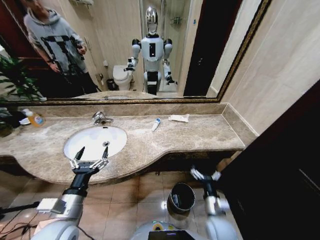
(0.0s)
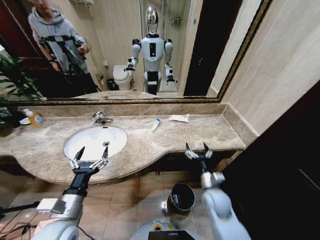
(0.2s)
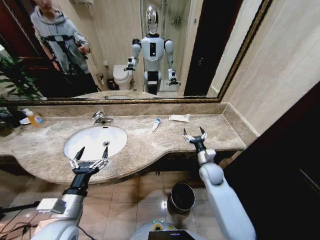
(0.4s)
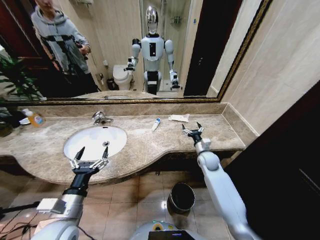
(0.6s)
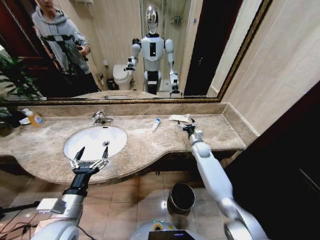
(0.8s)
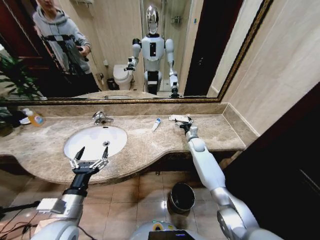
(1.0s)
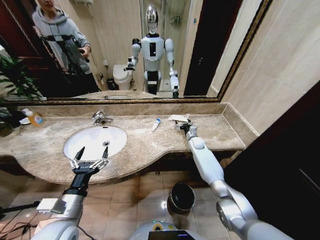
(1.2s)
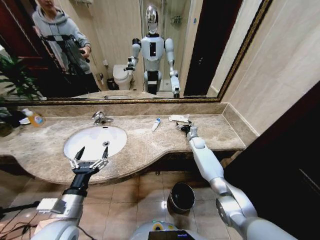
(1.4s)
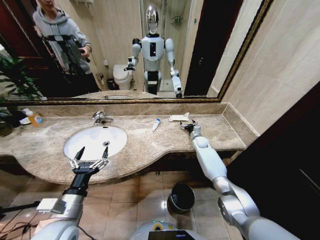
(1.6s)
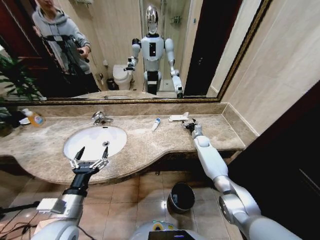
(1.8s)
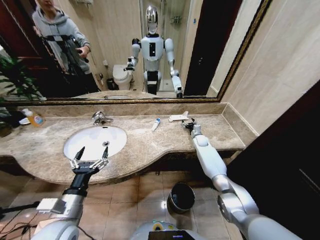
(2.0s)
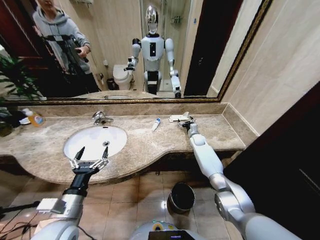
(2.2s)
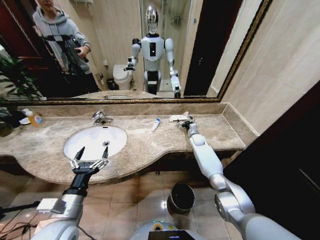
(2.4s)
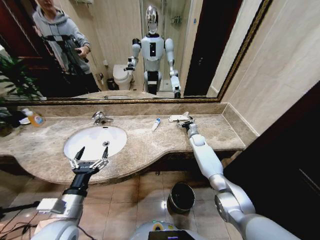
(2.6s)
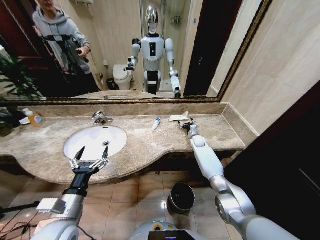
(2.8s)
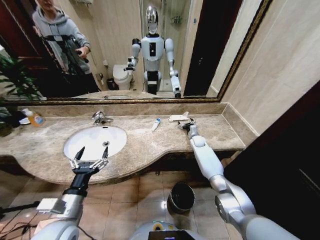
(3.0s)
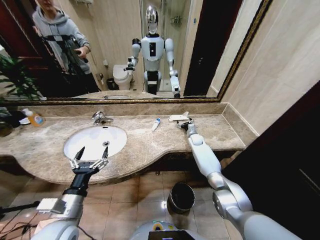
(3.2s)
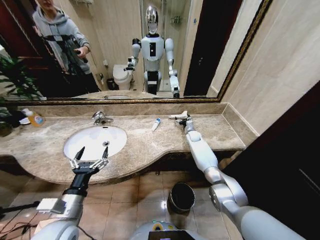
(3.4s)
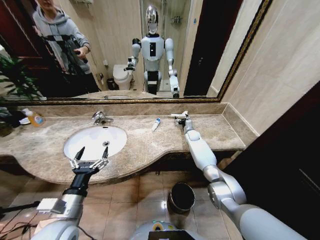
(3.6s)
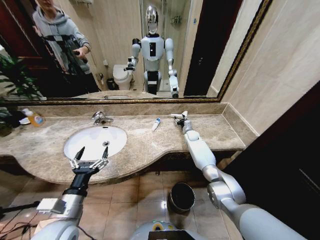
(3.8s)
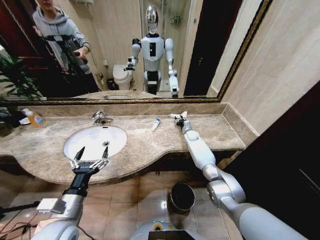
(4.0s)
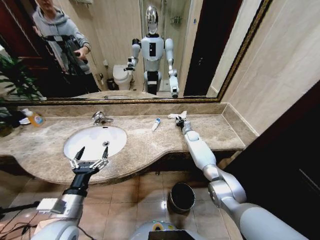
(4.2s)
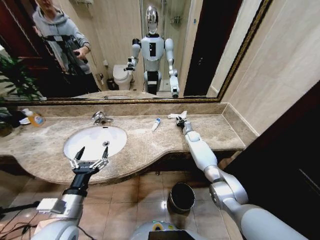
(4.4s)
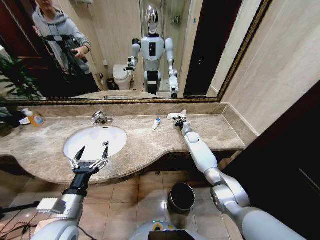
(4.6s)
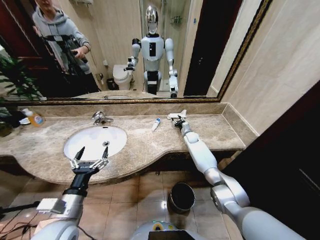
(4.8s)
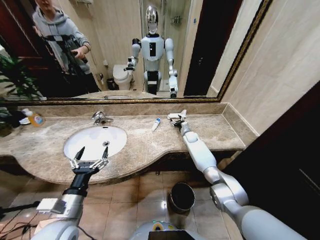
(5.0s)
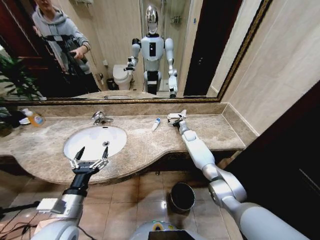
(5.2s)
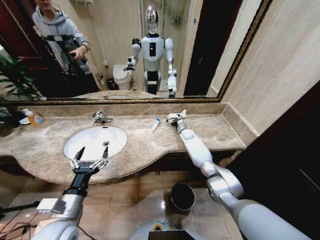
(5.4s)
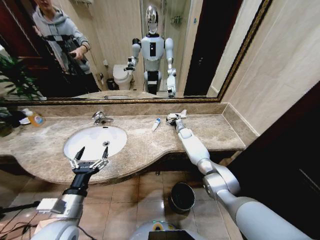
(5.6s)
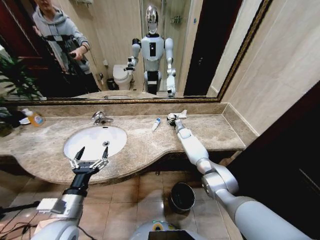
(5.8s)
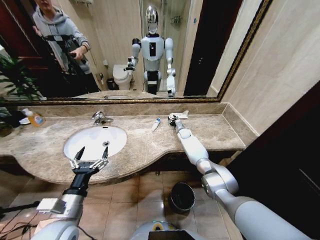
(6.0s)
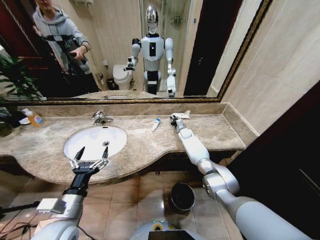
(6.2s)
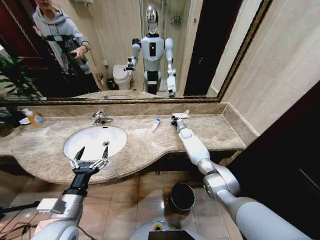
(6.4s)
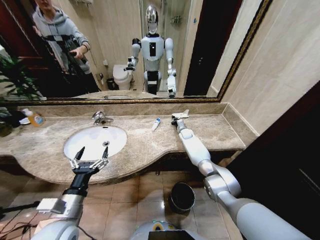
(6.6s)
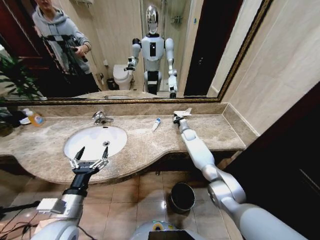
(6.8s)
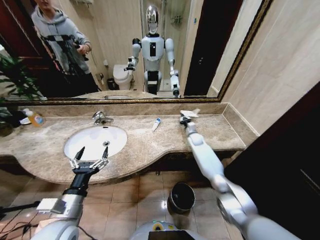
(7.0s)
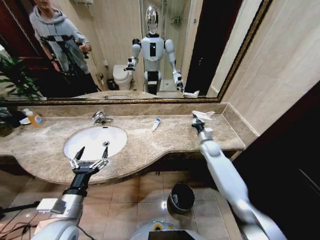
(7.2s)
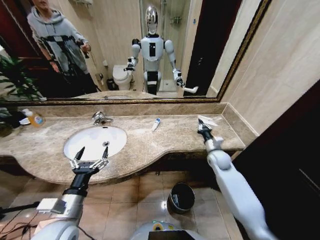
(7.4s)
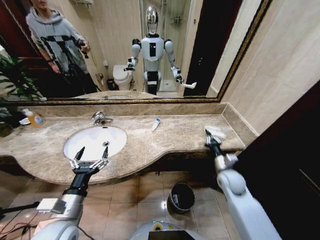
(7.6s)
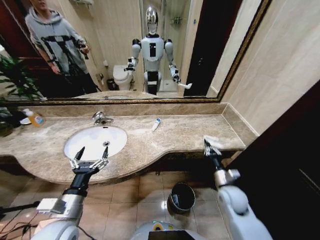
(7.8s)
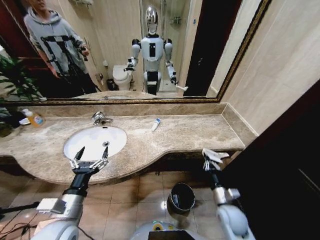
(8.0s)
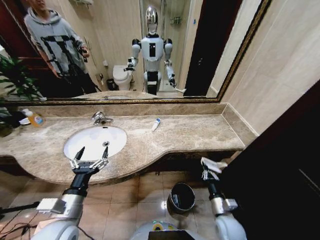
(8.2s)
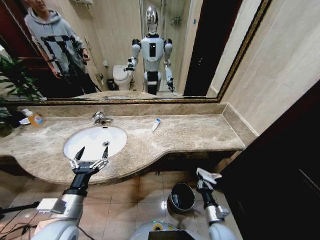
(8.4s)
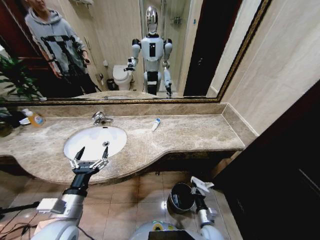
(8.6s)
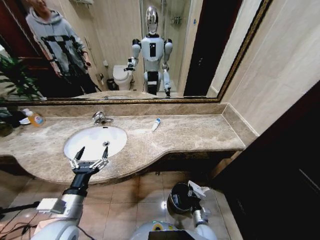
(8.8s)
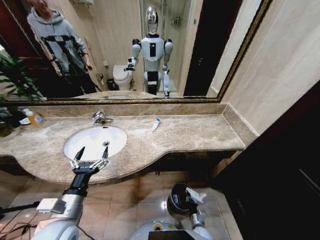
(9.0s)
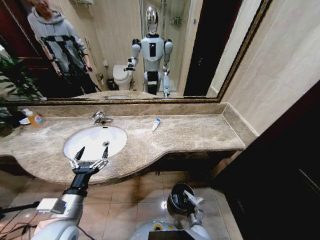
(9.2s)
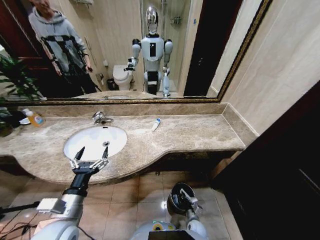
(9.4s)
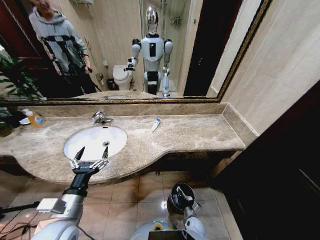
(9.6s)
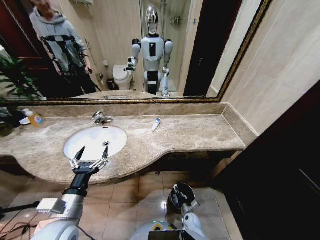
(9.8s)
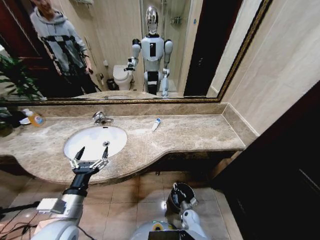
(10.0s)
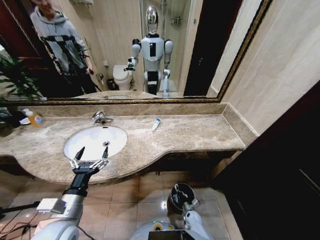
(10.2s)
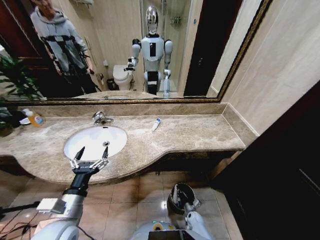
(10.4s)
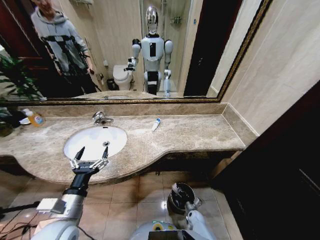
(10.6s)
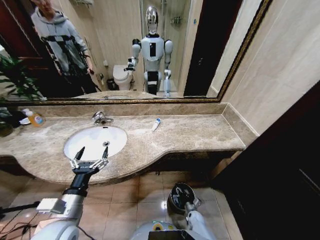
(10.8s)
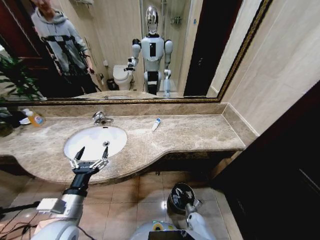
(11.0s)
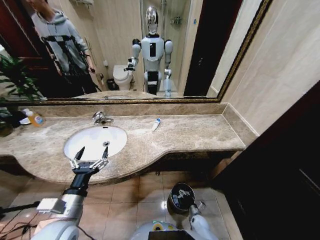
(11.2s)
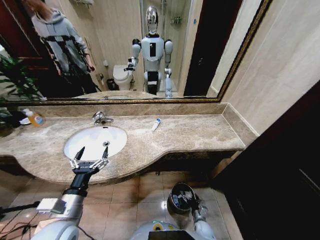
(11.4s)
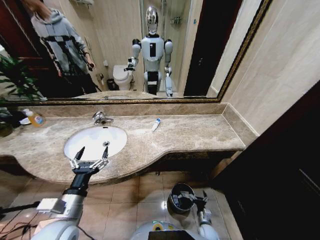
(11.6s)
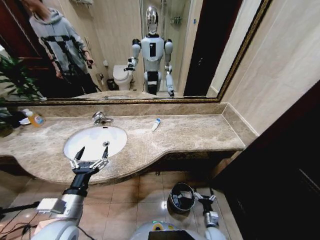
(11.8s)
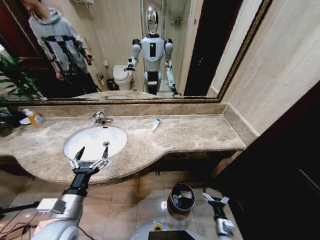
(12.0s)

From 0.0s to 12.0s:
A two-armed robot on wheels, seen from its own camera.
Task of the whole recording: Pick up the trash from the sink and place it in the trash bin.
From 0.0s to 1.6s: The right gripper shifts about 40 cm forward.
From 1.6s to 3.0s: The grippers stay close to where they were, moving slightly.
From 3.0s to 4.4s: The right gripper closes its fingers.
From 4.4s to 6.0s: The right gripper moves some 5 cm, and opens and closes again.
From 6.0s to 7.6s: The right gripper heads backward, covering roughly 35 cm, and closes up.
From 7.6s to 9.0s: The right gripper travels downward and backward by some 35 cm.
From 9.0s to 10.4s: The right gripper shifts some 5 cm forward.
From 10.4s to 12.0s: The right gripper travels upward, backward and to the right by some 20 cm, and opens.

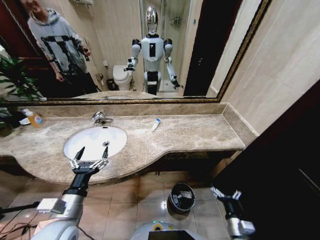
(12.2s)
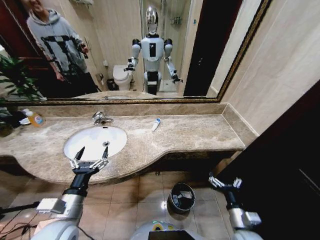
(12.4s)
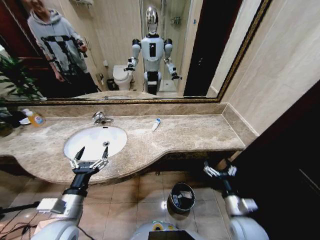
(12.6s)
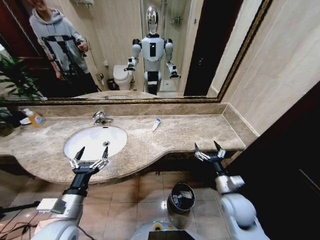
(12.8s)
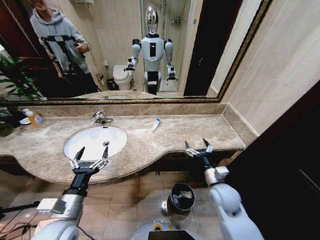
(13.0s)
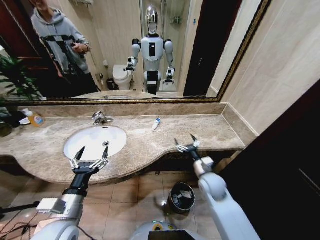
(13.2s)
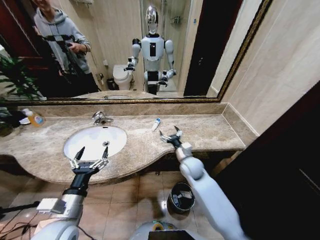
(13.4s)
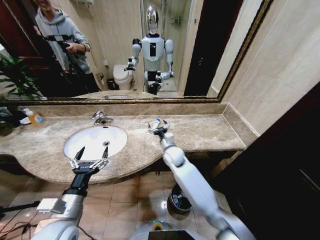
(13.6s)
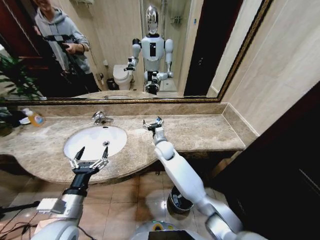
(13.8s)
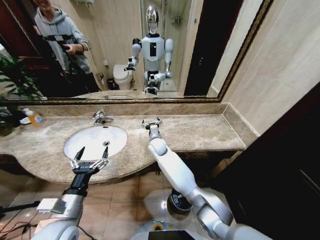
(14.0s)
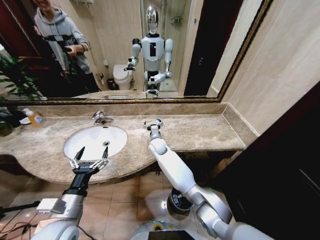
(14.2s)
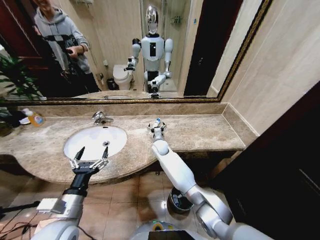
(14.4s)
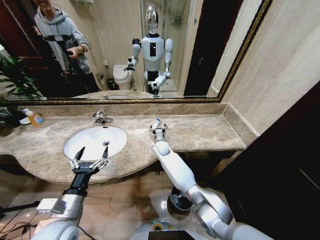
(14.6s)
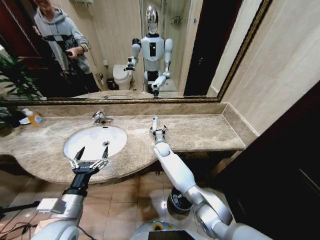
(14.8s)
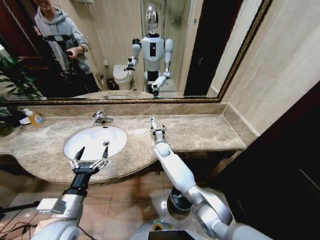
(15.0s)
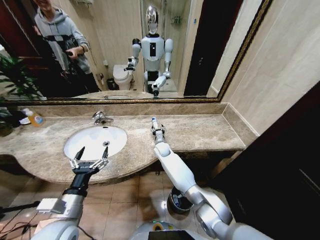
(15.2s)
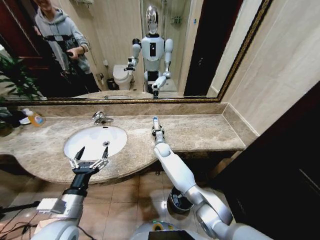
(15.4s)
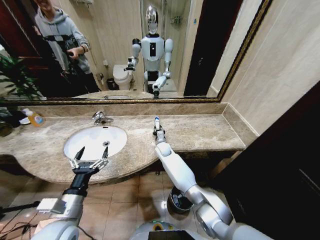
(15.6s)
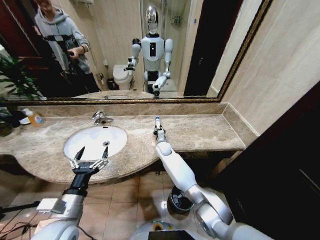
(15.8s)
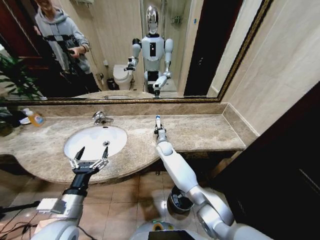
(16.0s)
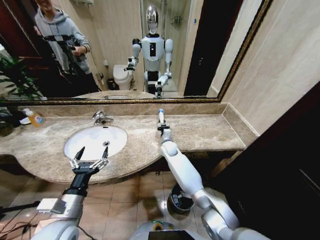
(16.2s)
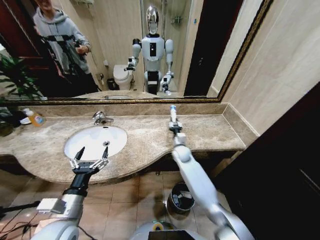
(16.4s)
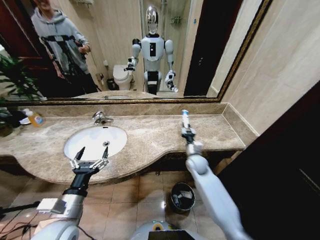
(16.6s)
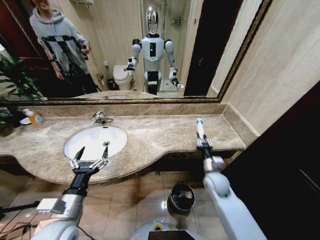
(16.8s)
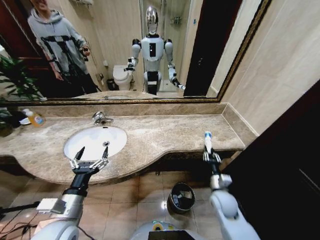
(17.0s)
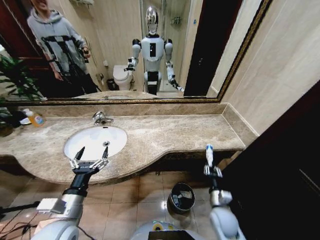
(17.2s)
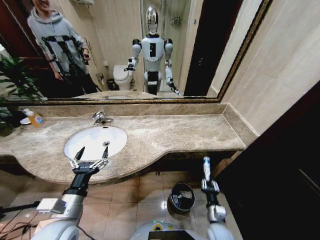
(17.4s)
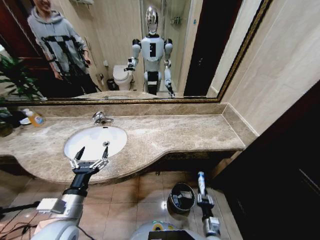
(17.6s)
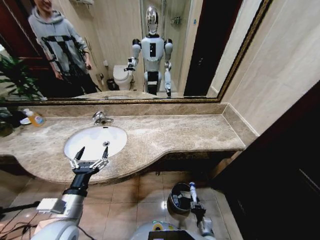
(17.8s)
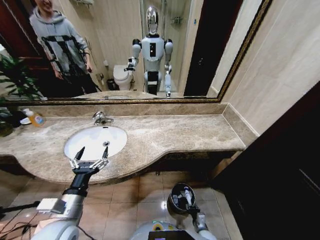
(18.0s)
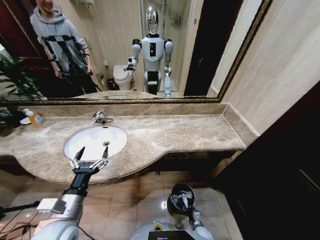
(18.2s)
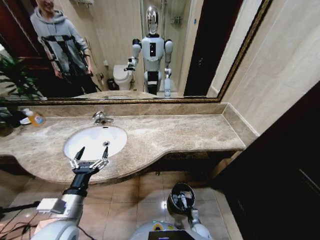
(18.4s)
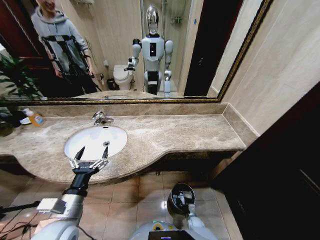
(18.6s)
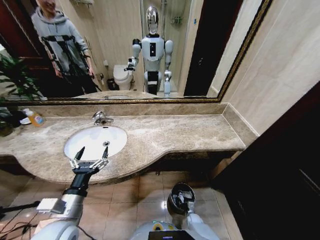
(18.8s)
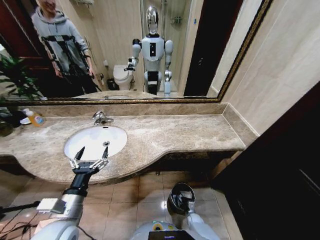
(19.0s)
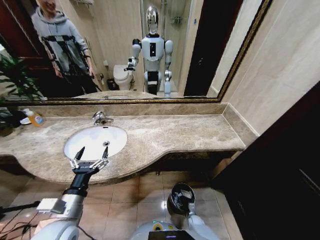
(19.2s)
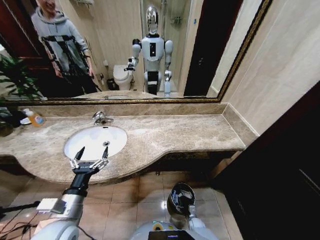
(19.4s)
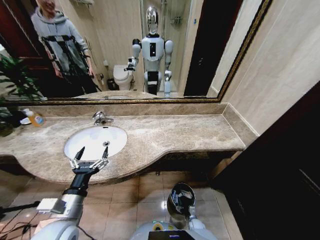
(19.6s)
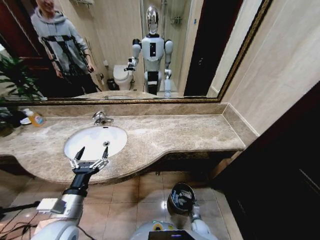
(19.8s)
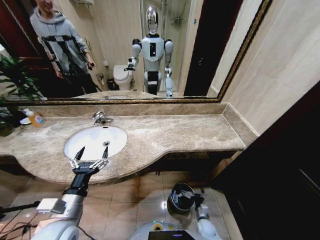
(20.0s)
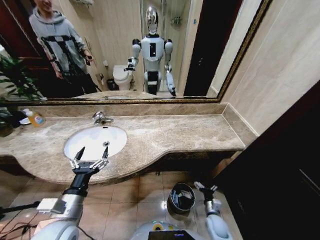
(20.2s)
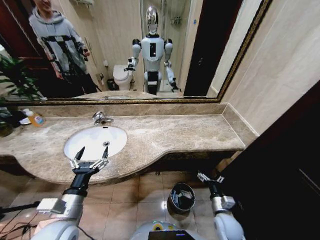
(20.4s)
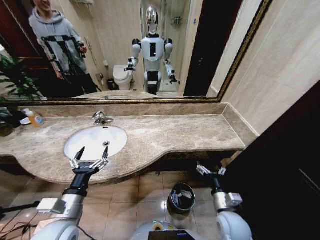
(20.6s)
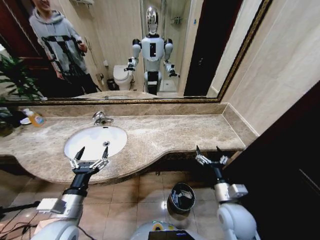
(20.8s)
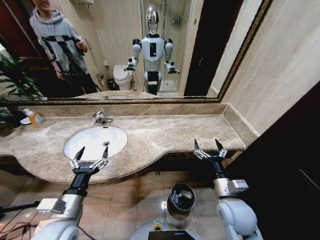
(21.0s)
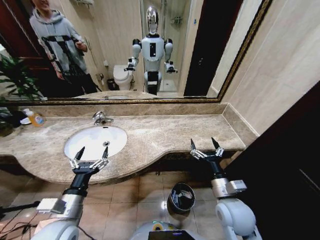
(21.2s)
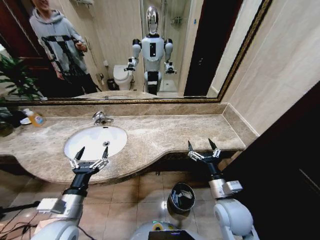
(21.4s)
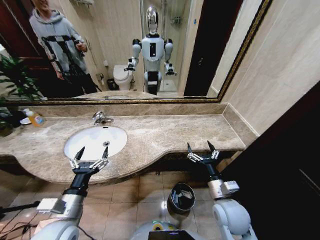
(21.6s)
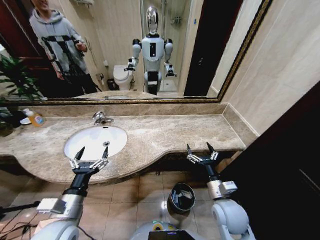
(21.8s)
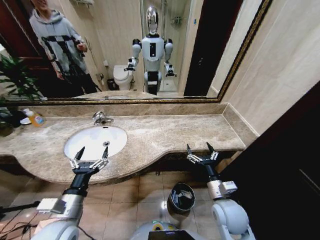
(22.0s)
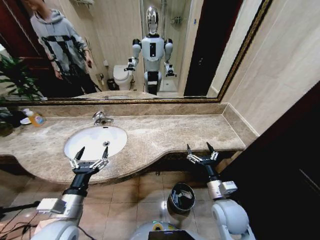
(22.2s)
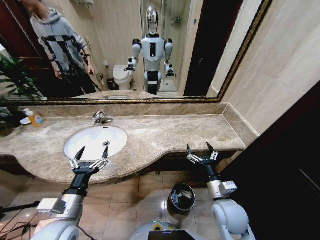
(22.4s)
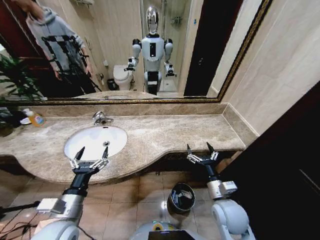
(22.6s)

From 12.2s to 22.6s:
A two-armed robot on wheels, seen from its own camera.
Task of the whole recording: Pick up the trash from the sink and place it in the trash bin.
From 12.2s to 13.6s: The right gripper moves forward, to the left and upward, approximately 40 cm.
From 13.6s to 15.2s: The right gripper travels forward, downward and to the left by some 15 cm.
From 15.2s to 16.6s: The right gripper moves to the right and backward, roughly 20 cm, and closes its fingers.
From 16.6s to 18.2s: The right gripper shifts some 40 cm downward and backward.
From 18.2s to 19.6s: The right gripper changes place by roughly 5 cm, and opens up.
From 19.6s to 21.2s: The right gripper shifts approximately 50 cm upward.
From 21.2s to 22.6s: The grippers stay close to where they were, moving slightly.
